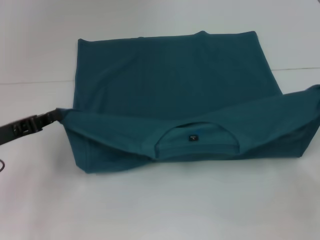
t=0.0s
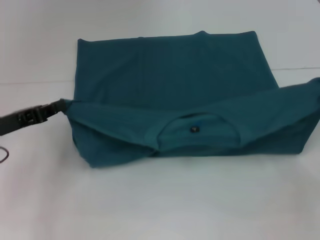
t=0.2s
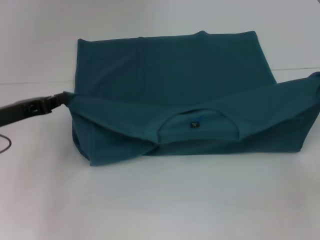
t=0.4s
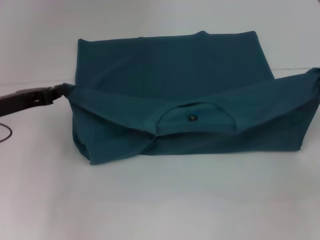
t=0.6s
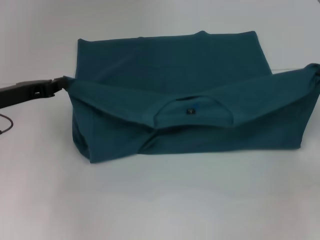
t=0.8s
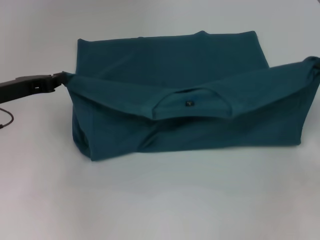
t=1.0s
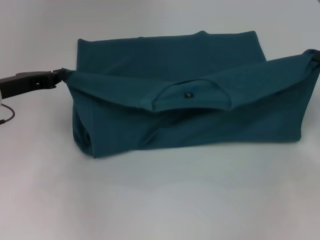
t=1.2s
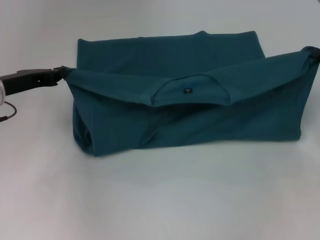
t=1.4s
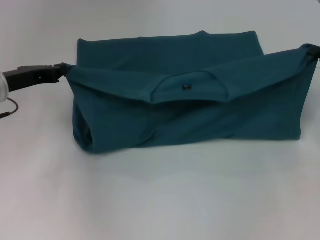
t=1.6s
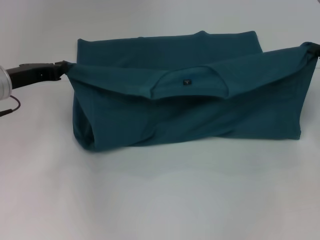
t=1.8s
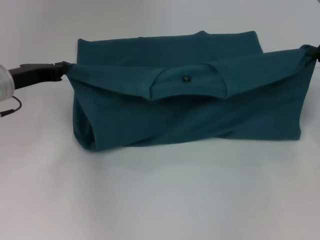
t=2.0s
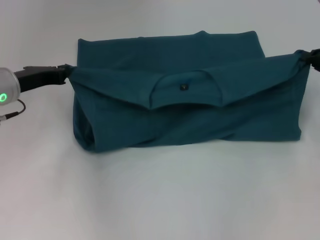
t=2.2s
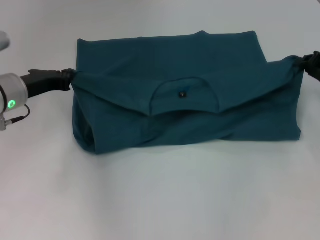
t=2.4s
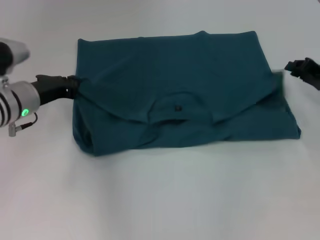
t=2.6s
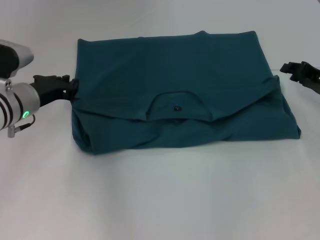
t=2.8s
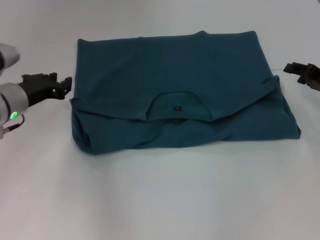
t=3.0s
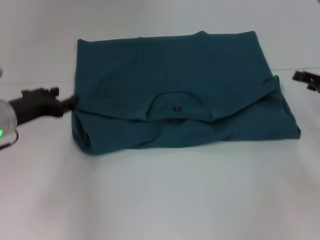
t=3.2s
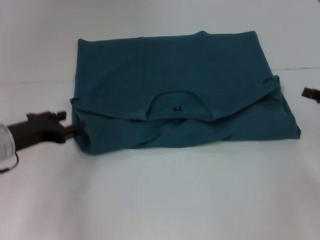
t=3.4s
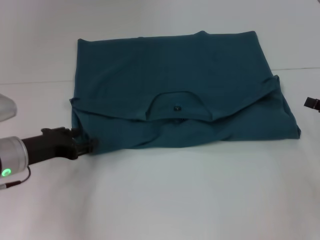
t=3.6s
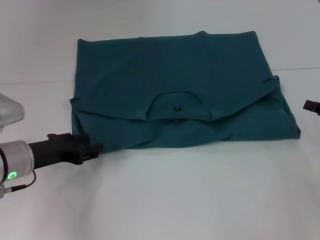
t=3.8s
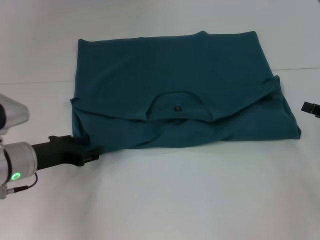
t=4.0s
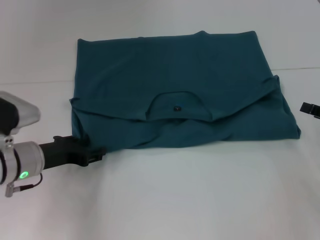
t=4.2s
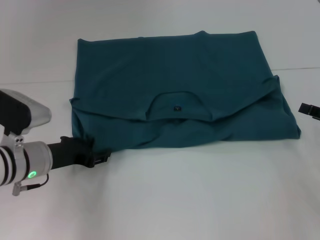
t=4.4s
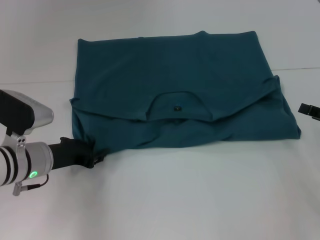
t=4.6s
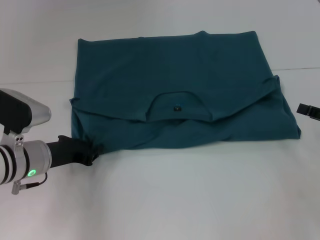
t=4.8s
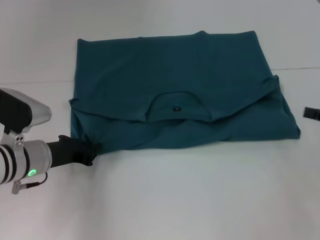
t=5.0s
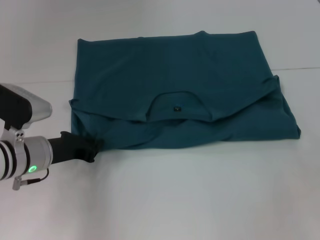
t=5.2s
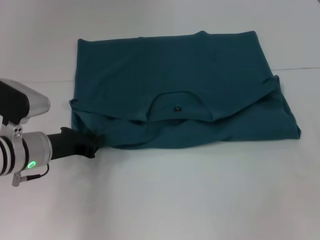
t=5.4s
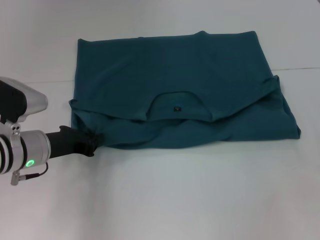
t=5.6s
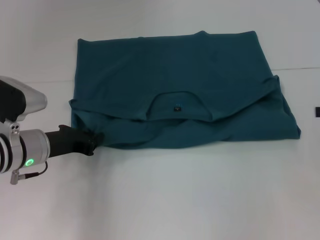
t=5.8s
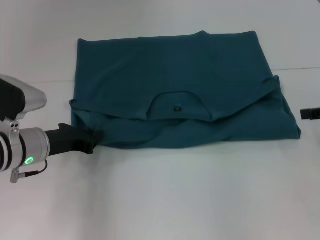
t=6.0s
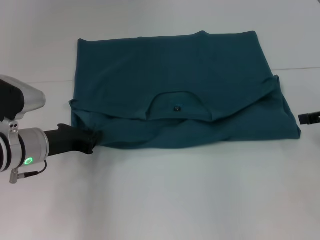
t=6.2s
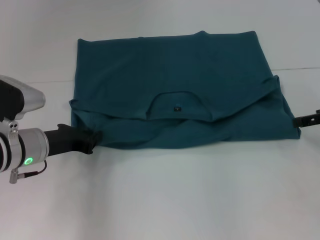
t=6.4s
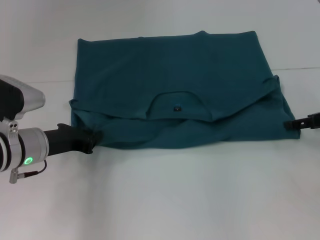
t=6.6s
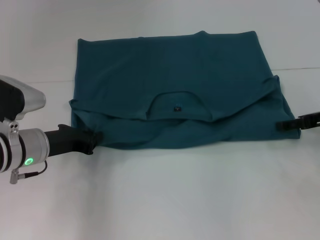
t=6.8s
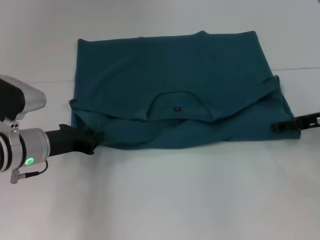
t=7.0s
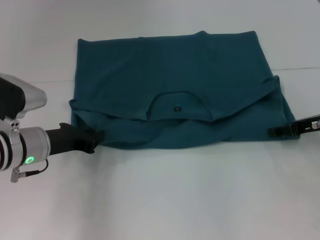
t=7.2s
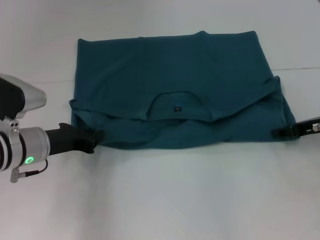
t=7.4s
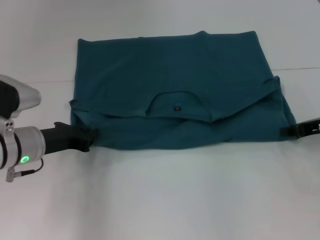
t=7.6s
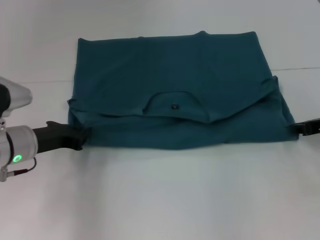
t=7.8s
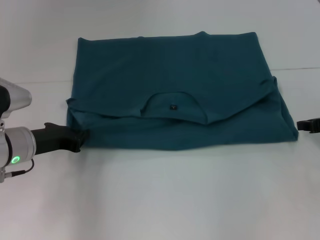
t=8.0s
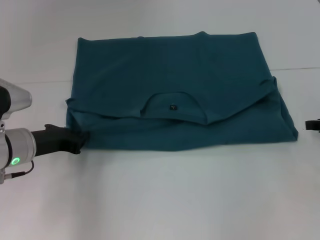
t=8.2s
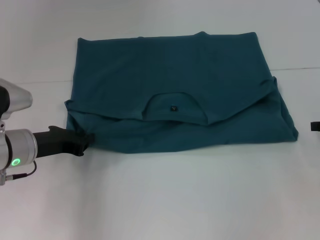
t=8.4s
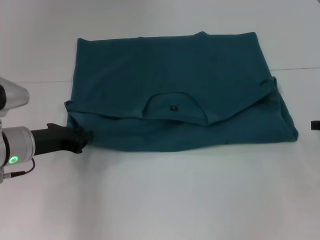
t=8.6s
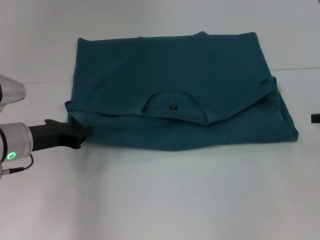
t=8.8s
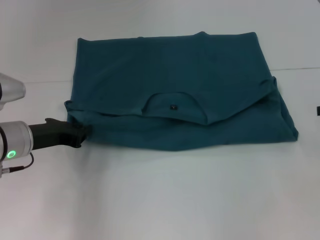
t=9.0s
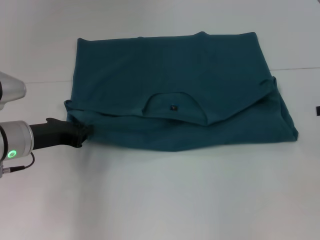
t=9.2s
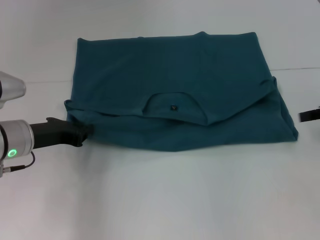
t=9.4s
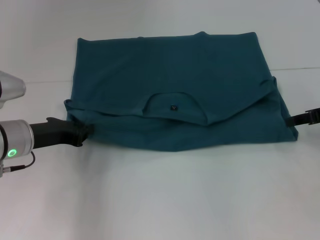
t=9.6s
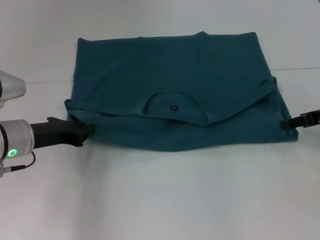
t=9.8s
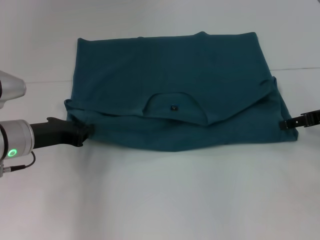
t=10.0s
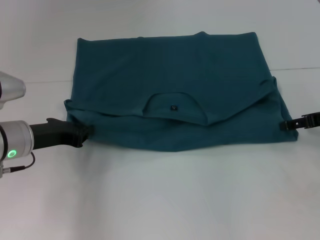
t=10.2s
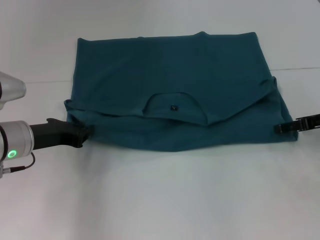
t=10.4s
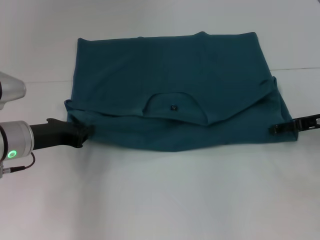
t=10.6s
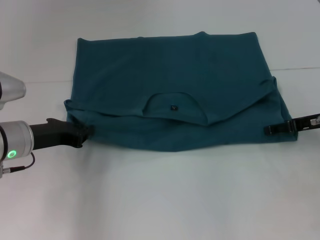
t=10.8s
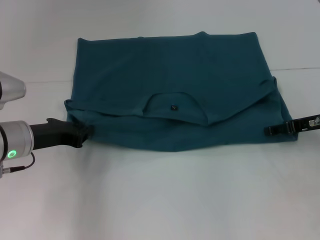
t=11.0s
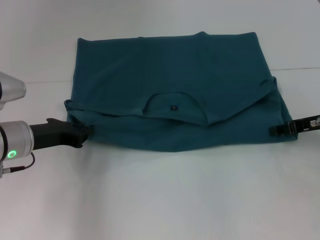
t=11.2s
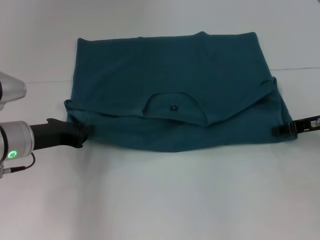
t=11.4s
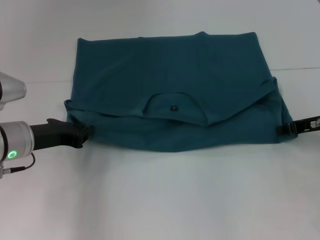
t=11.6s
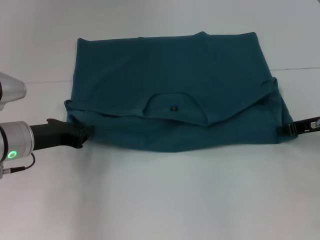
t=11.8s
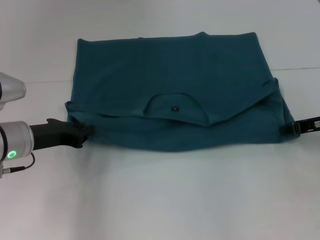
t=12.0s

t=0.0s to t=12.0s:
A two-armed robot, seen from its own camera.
Step, t=0.0s to t=3.0s: Fold the clothes to the left.
Step, t=0.0s to t=3.0s: Fold the clothes to the right.
t=0.0s to t=1.6s: Both grippers move forward, about 10 cm.
t=3.0s to t=4.4s: Both grippers travel together backward, roughly 10 cm. The left gripper opens.
t=4.4s to t=6.0s: The left gripper closes.
t=6.0s to t=7.6s: The right gripper goes approximately 5 cm downward, and closes its fingers.
t=7.6s to t=9.0s: The right gripper is displaced to the right by about 5 cm, and closes its fingers.
t=9.0s to t=10.4s: The right gripper shifts approximately 5 cm to the left, and opens its fingers.
t=10.4s to t=12.0s: The right gripper closes up.

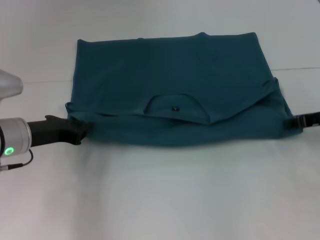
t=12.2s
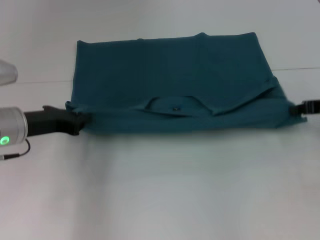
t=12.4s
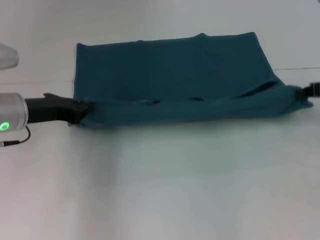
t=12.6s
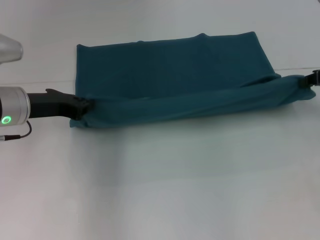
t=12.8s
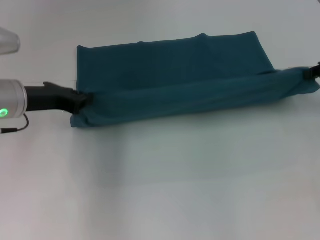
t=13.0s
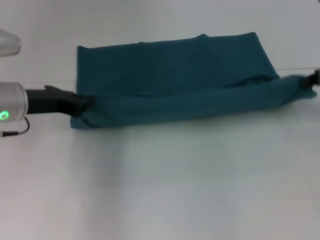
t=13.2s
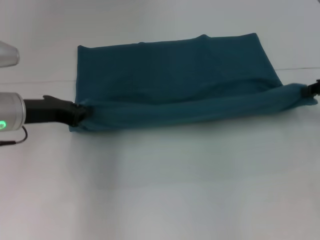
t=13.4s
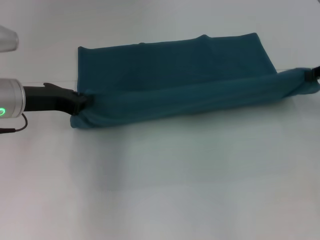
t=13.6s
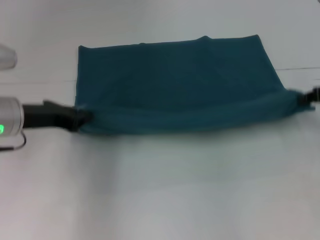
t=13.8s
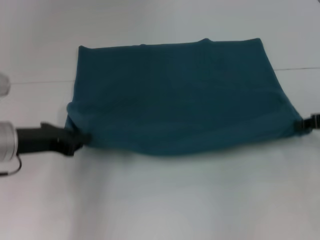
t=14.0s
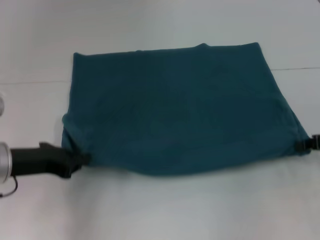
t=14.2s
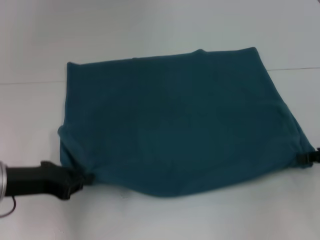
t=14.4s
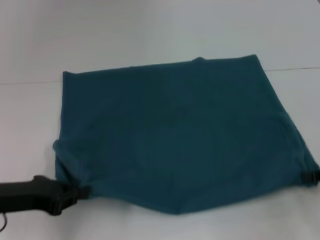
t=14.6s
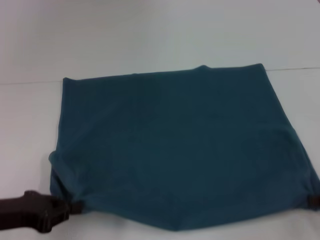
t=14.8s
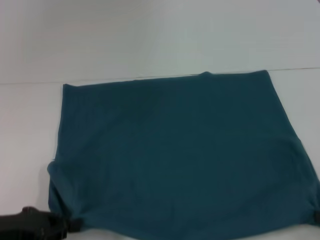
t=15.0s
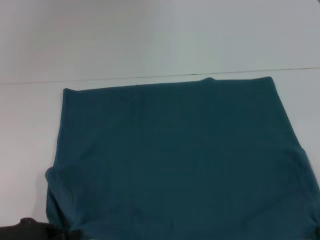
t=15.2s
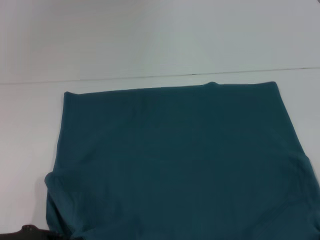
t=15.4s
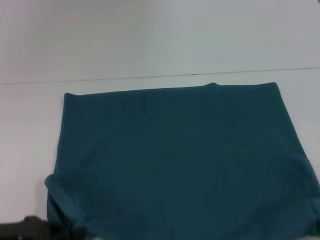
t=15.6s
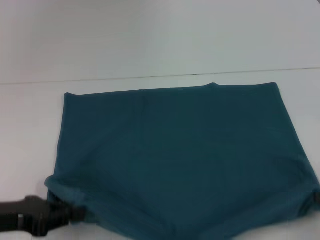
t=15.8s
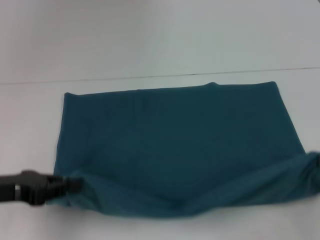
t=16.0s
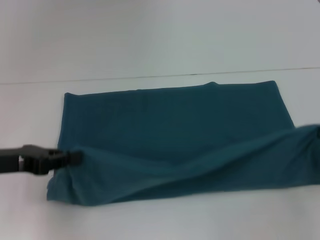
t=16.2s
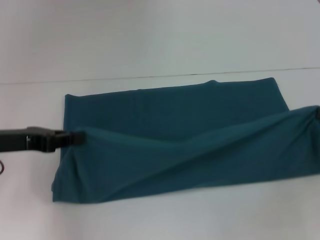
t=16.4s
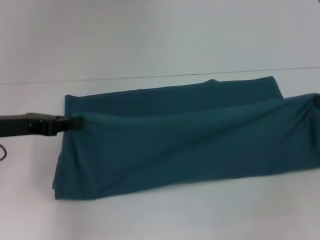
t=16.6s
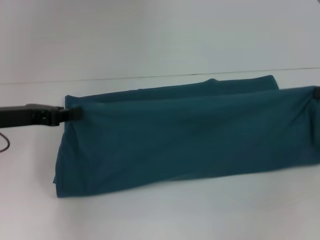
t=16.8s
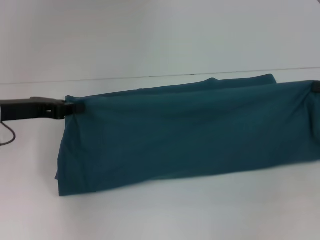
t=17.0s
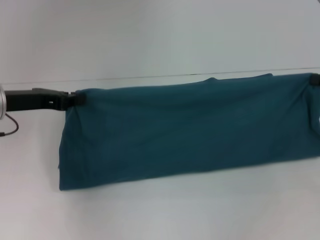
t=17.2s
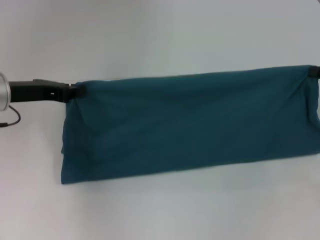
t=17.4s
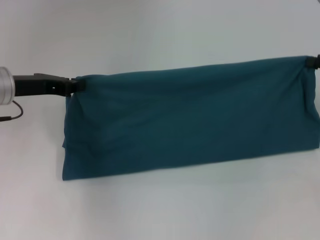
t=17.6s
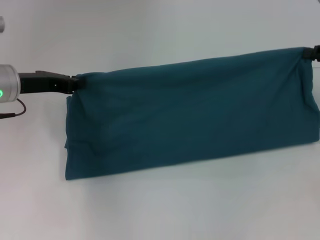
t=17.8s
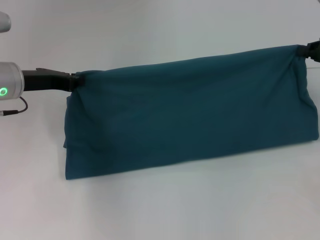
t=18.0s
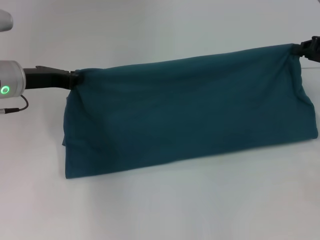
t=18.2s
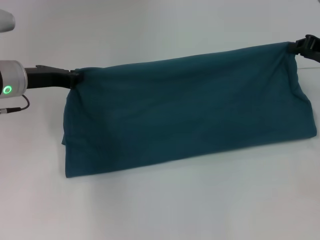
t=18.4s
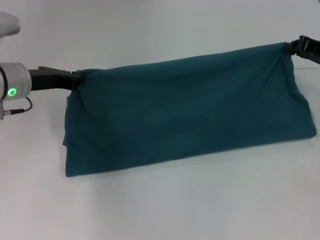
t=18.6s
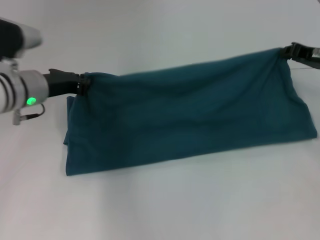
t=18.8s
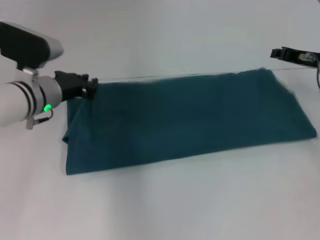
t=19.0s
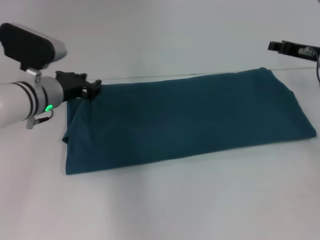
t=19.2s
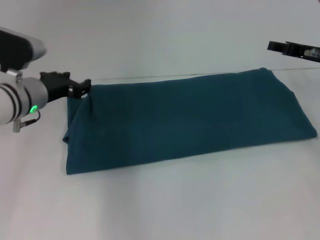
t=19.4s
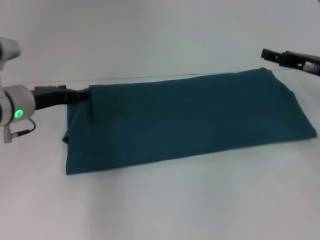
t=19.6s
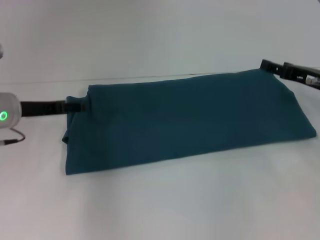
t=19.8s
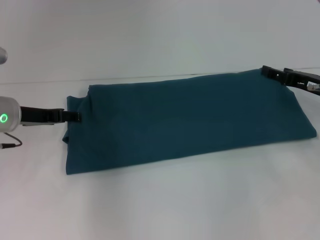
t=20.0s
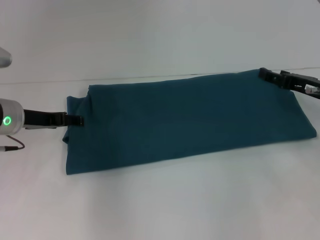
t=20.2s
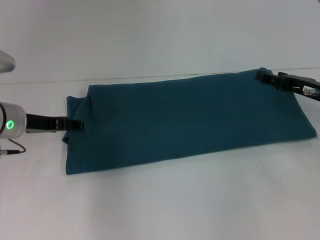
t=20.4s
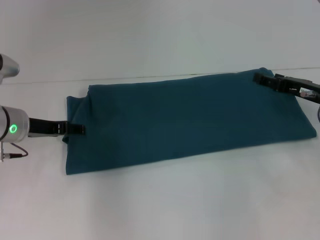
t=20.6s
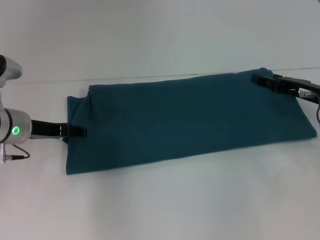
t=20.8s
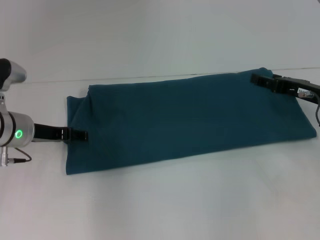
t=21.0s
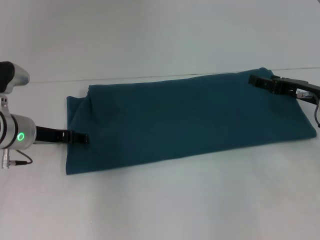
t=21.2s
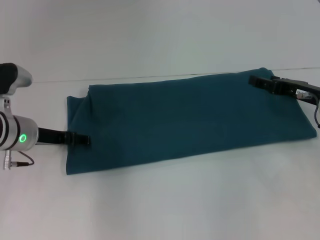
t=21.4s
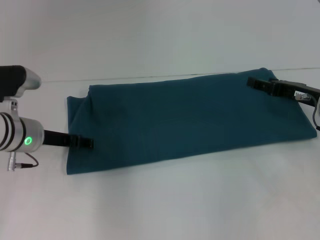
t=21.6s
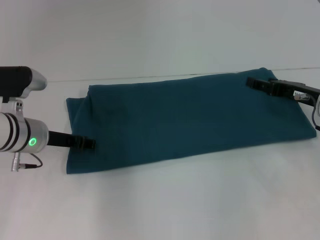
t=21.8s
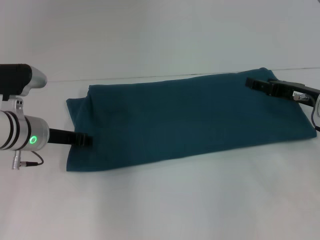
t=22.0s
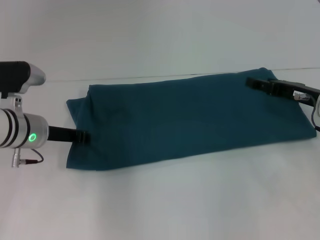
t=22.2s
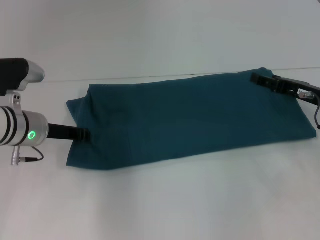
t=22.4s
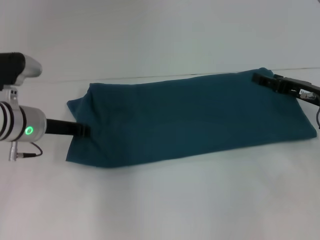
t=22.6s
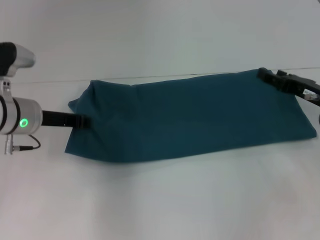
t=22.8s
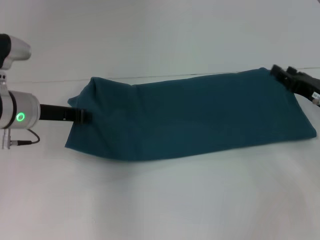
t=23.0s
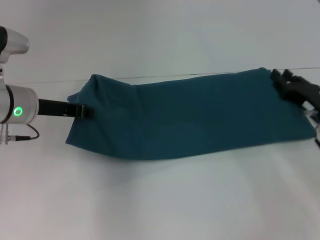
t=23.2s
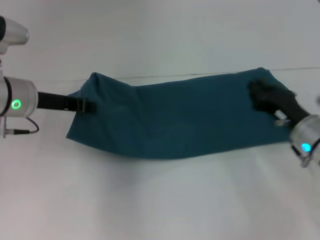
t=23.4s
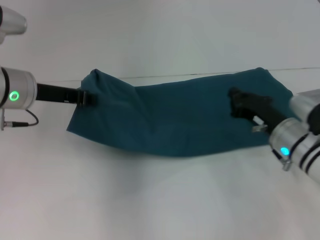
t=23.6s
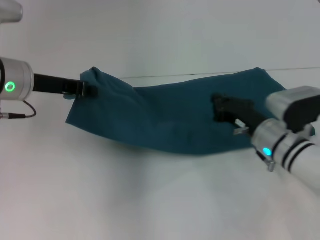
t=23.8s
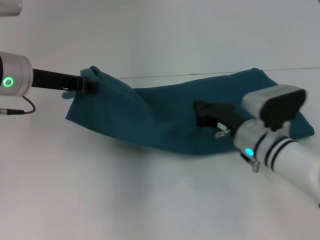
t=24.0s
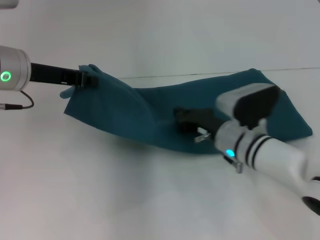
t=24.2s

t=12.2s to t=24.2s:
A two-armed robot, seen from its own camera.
Step, t=12.2s to t=15.4s: Pull the clothes with your left hand.
Step, t=12.2s to t=15.4s: Pull the clothes with your right hand.
Step, t=15.6s to t=19.2s: Fold the clothes to the left.
Step, t=15.6s to t=19.2s: Fold the clothes to the right.
t=13.8s to t=15.2s: The right gripper travels backward and downward by roughly 20 cm, while the left gripper goes some 15 cm backward.
t=15.2s to t=16.6s: The grippers both shift forward and upward by approximately 15 cm.
t=16.6s to t=18.2s: The grippers both shift forward by roughly 10 cm.
t=18.2s to t=19.8s: The left gripper opens, while the right gripper travels downward by some 5 cm, and opens.
t=19.8s to t=21.2s: The grippers stay close to where they were, moving slightly.
t=21.2s to t=22.6s: The left gripper closes its fingers.
t=22.6s to t=24.2s: The right gripper shifts approximately 15 cm to the left, and closes its fingers; the left gripper is displaced upward by approximately 10 cm.
